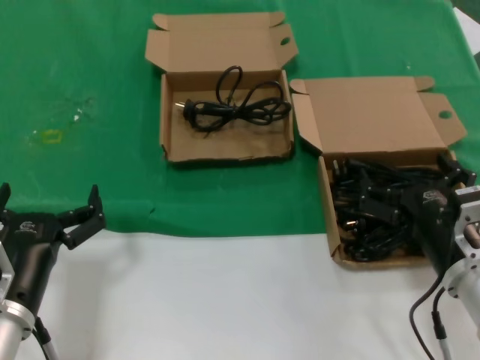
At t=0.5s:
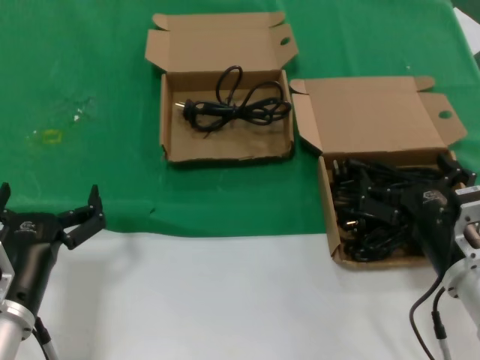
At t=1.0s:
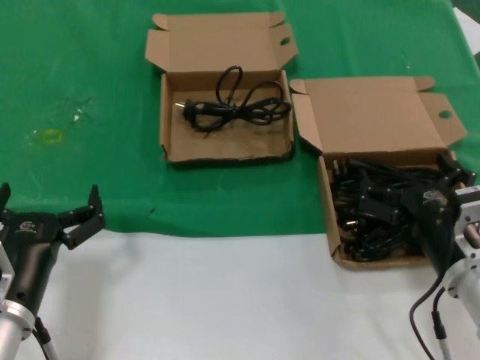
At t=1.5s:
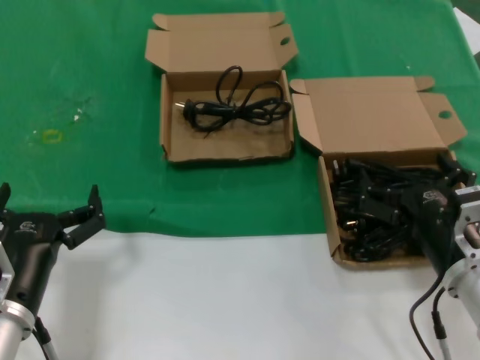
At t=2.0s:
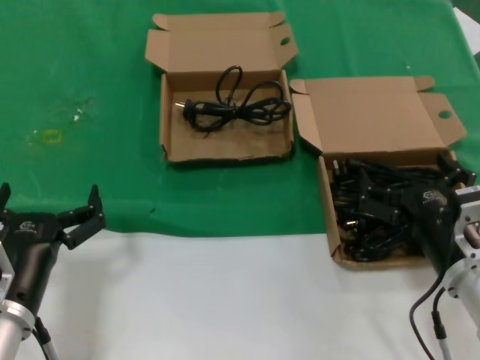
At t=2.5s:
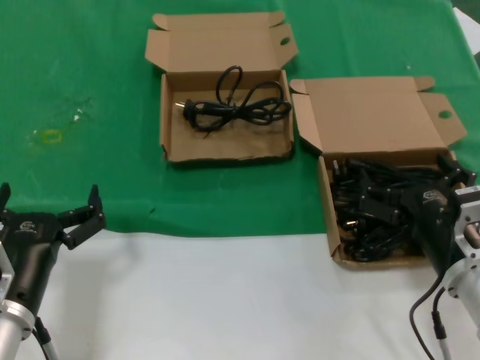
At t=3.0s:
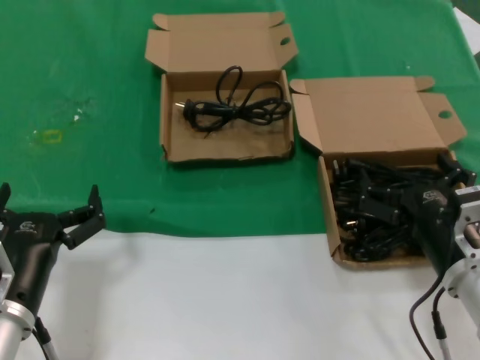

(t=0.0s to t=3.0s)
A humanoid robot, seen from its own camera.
Task of the whole recording: take the parts from the box containing them and put them into an empty box.
t=0.0s - t=3.0s: Both hands stay about where they are.
